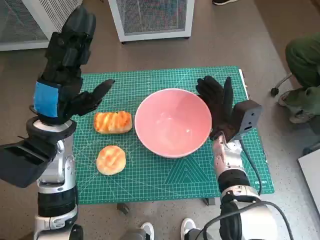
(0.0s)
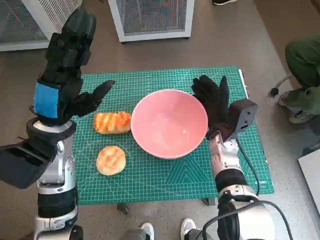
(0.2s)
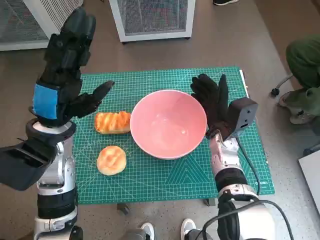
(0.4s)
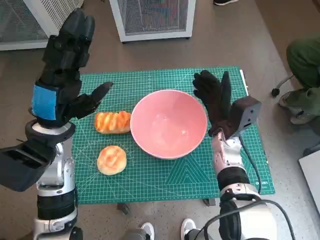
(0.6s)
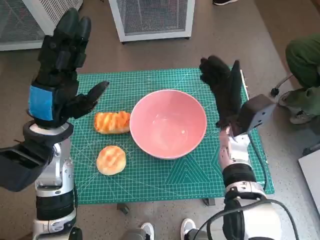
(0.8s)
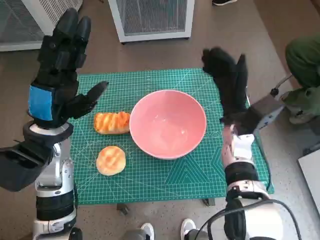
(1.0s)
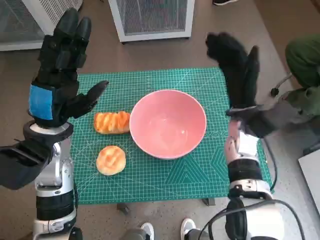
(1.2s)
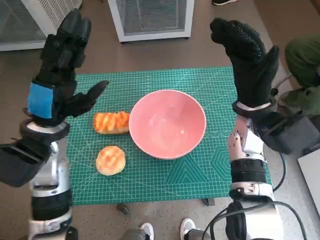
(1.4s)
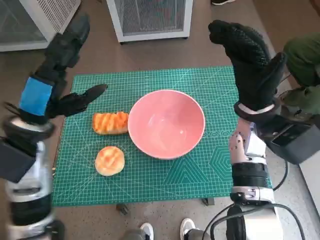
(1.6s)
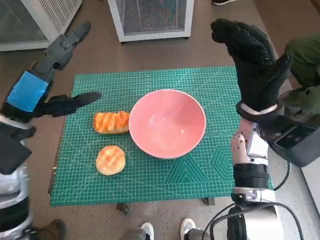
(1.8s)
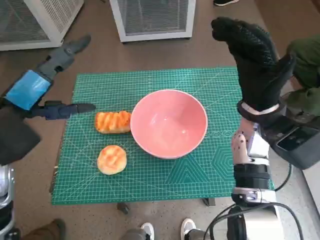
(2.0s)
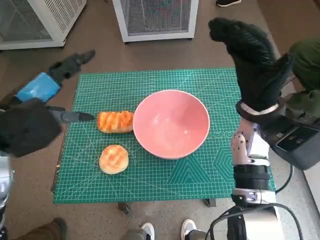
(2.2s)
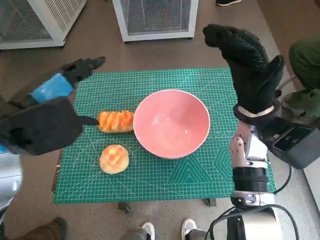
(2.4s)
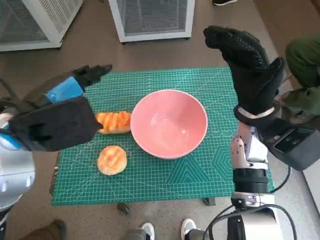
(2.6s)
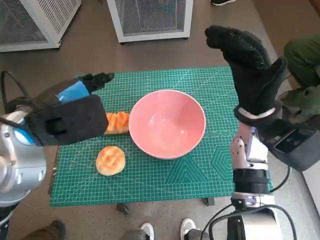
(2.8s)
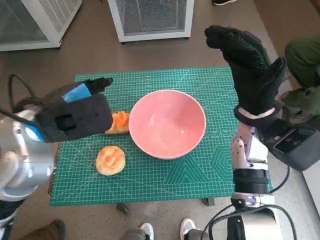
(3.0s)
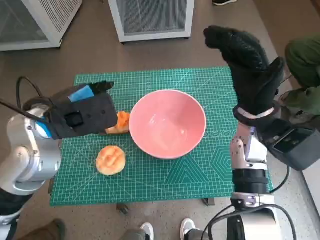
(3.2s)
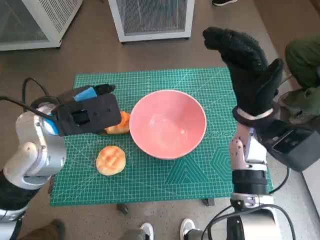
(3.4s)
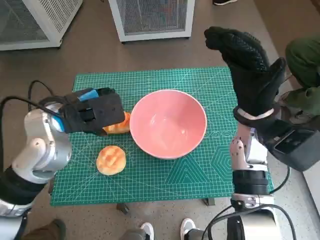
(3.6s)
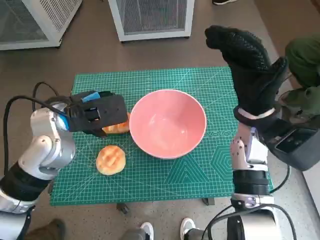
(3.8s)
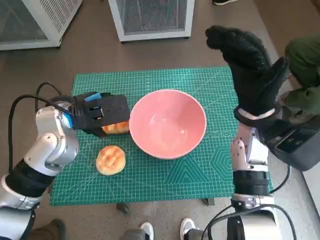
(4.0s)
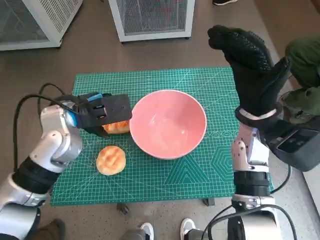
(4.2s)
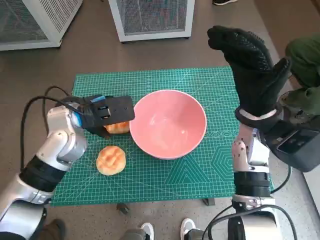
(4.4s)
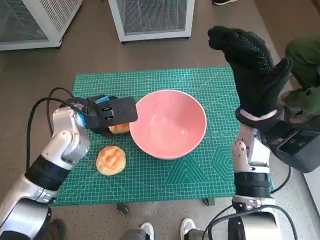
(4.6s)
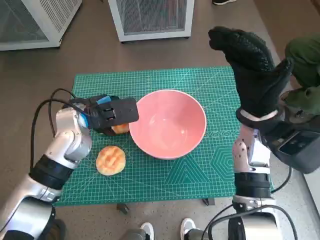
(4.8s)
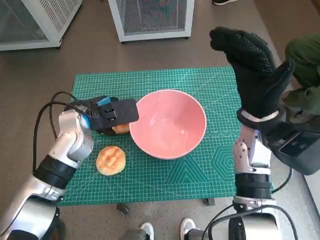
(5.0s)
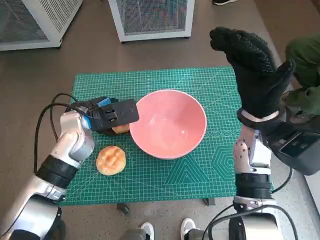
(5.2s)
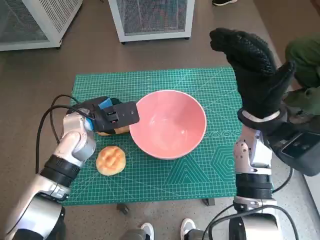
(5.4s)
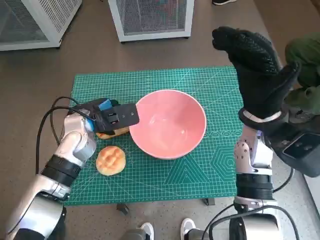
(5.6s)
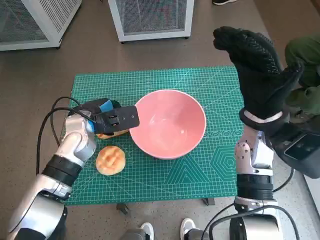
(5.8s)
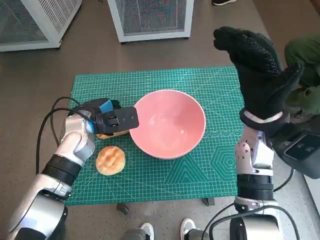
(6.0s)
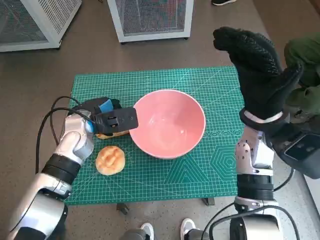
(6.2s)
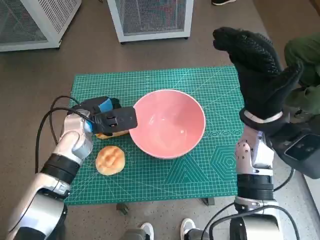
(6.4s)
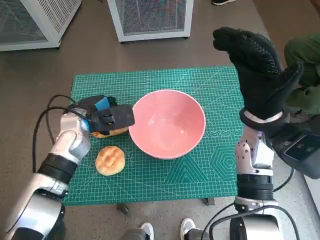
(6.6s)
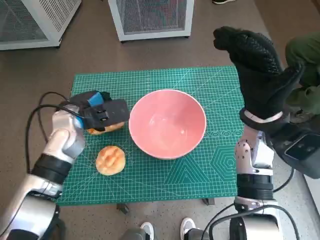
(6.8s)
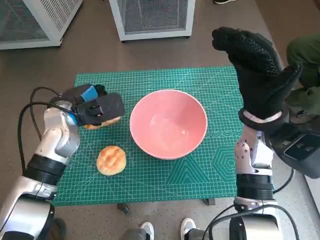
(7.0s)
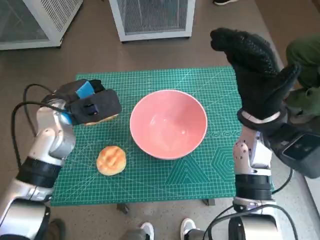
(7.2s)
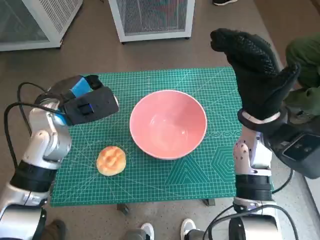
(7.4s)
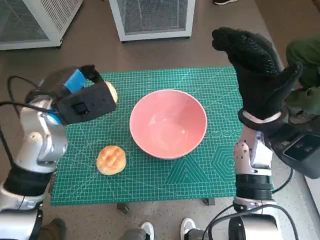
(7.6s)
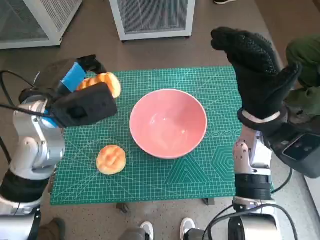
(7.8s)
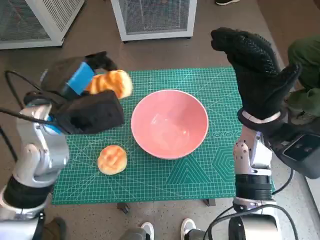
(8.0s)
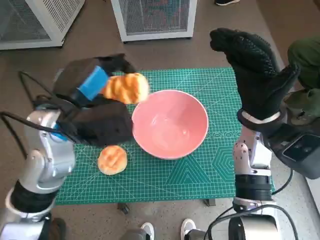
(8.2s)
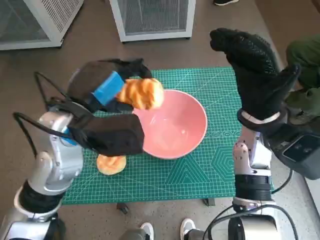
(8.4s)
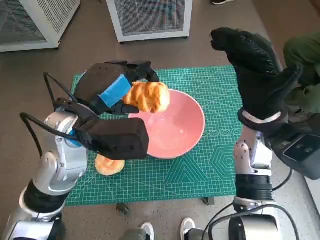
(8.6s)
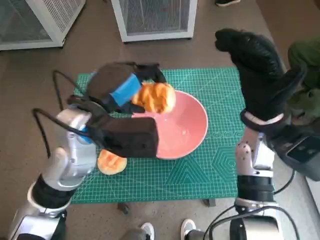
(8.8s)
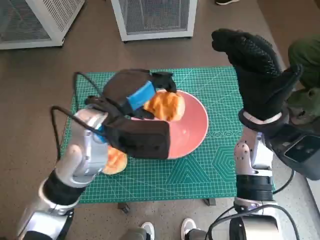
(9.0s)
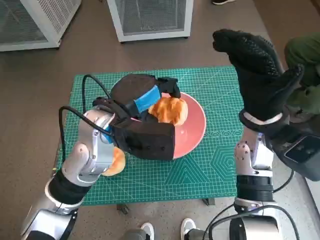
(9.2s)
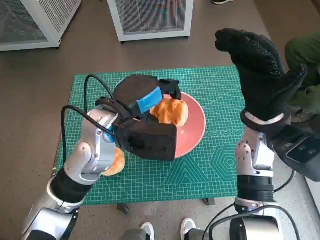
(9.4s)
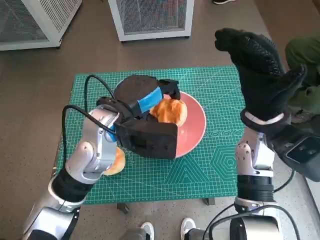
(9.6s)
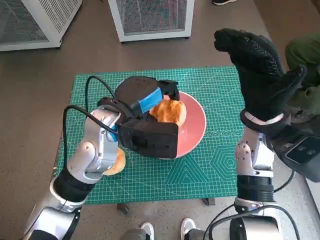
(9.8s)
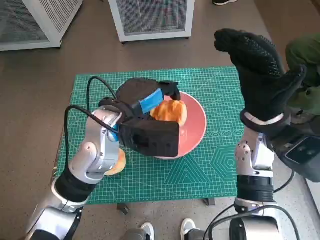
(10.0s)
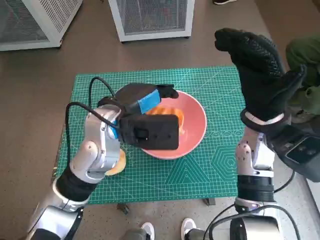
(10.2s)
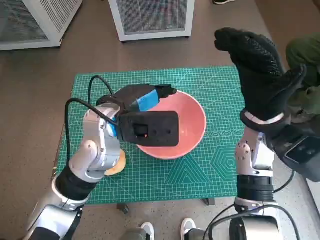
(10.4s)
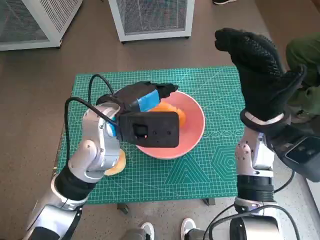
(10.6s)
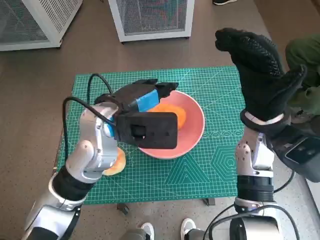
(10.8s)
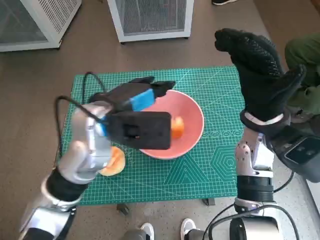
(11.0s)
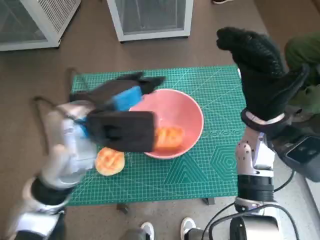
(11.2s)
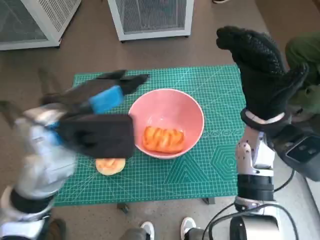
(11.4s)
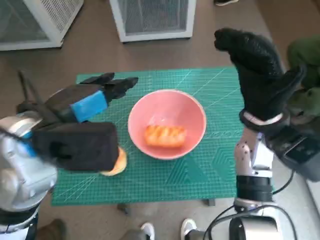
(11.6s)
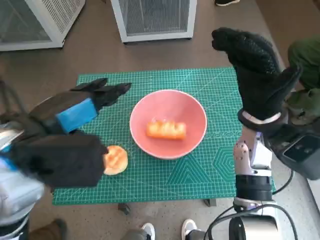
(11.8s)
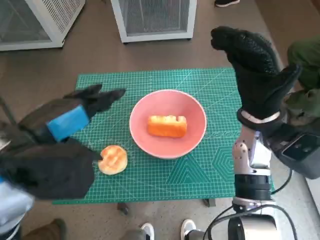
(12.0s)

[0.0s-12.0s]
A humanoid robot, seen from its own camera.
Task of the whole recording: Push the bowl into the center of the table and put the bread into the bowl.
Step, 0.8s to 5.6s: Grasp the long bread with left hand.
Step, 5.8s to 10.4s: Place the long bread in pink bowl with left hand.
0.0s to 1.6s: The right hand is displaced upward by roughly 10 cm.
1.6s to 3.0s: The left hand travels upward by about 5 cm.
3.0s to 4.4s: The left hand shifts some 10 cm downward and forward.
4.4s to 6.0s: The left hand moves downward, about 5 cm.
6.0s to 7.6s: The left hand travels upward by some 10 cm.
7.6s to 9.0s: The left hand goes roughly 10 cm to the right.
10.4s to 12.0s: The left hand heads backward, to the left and upward, covering about 15 cm.

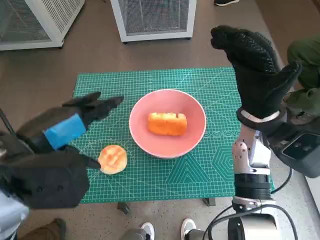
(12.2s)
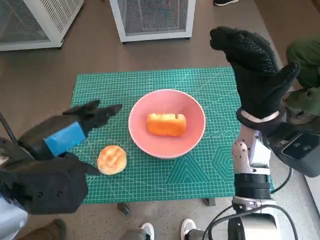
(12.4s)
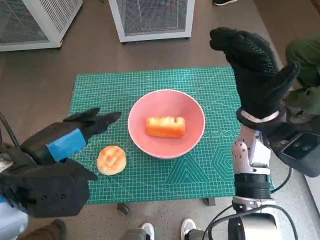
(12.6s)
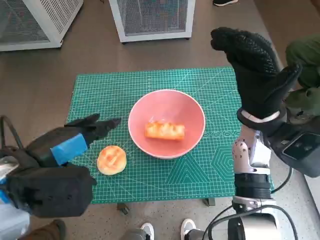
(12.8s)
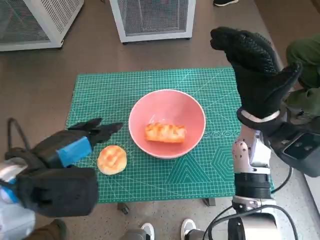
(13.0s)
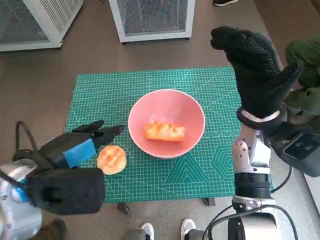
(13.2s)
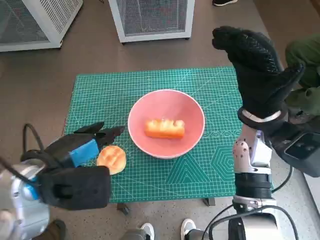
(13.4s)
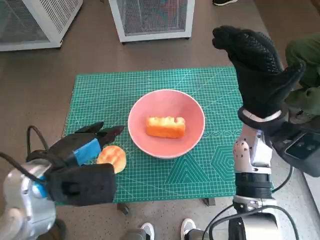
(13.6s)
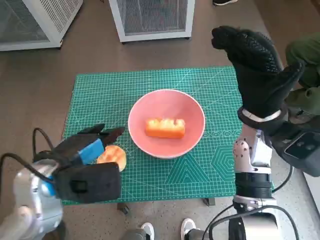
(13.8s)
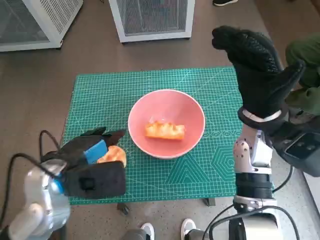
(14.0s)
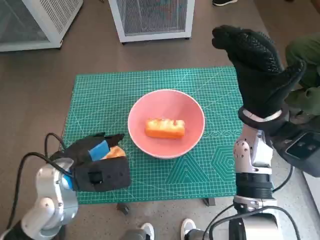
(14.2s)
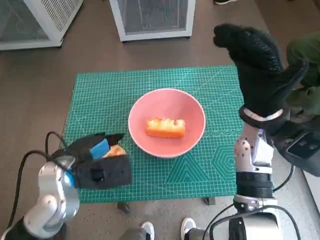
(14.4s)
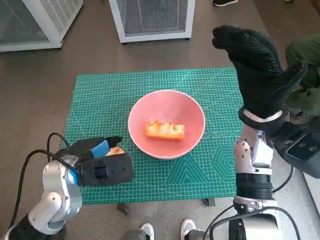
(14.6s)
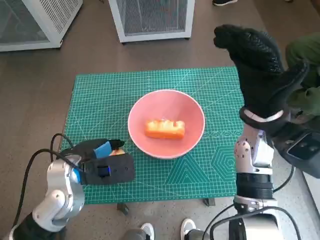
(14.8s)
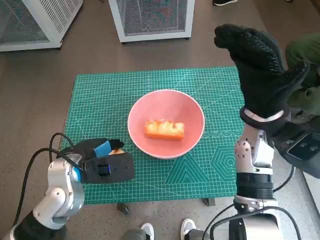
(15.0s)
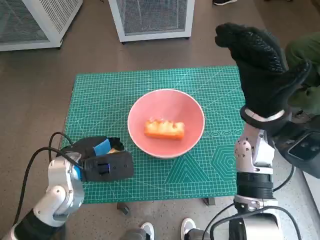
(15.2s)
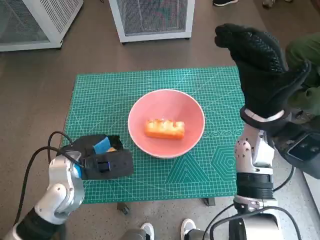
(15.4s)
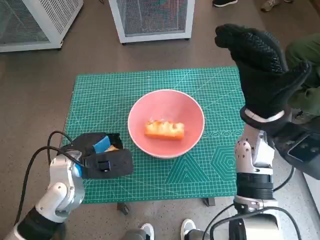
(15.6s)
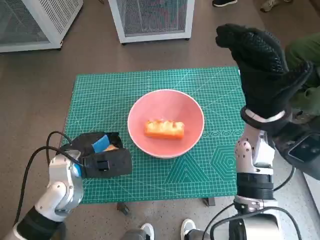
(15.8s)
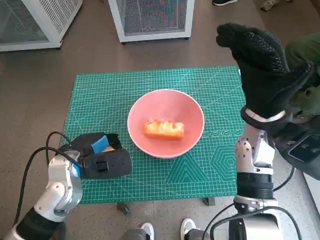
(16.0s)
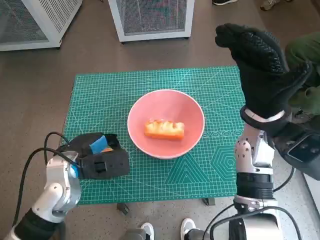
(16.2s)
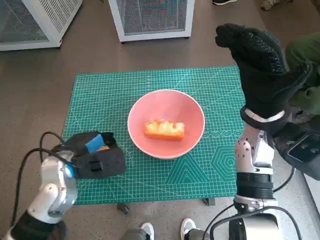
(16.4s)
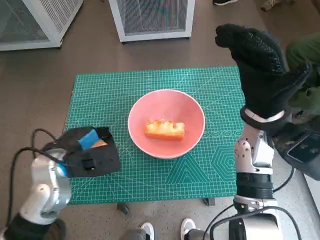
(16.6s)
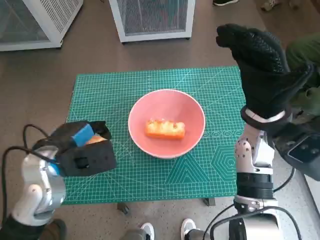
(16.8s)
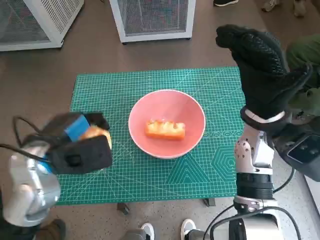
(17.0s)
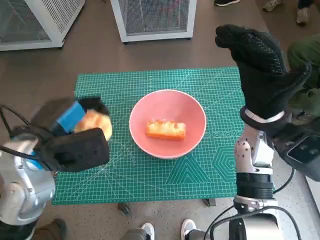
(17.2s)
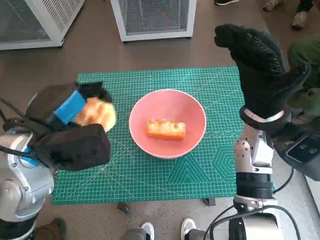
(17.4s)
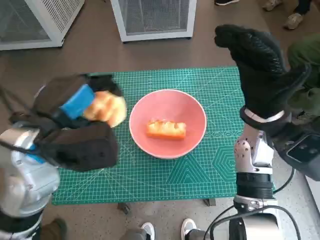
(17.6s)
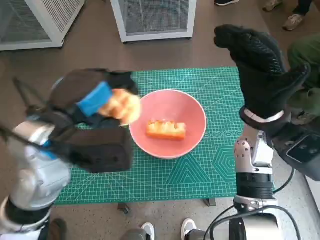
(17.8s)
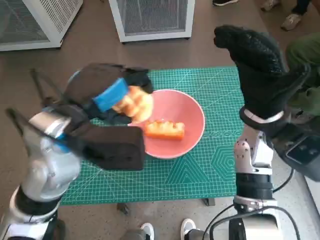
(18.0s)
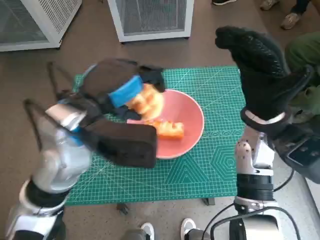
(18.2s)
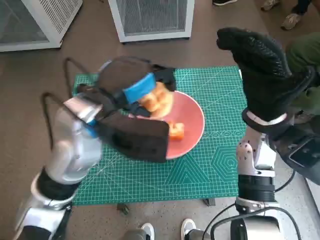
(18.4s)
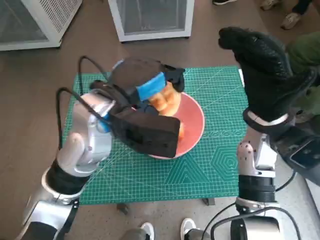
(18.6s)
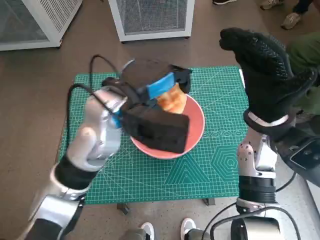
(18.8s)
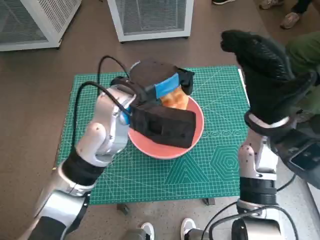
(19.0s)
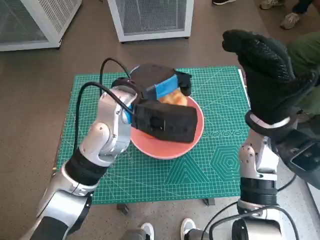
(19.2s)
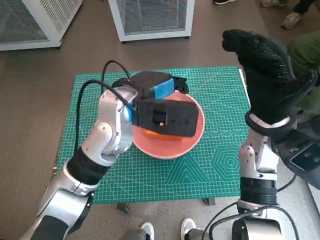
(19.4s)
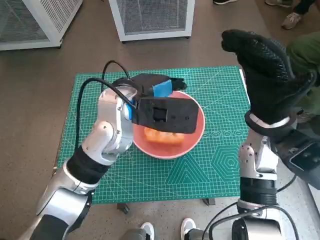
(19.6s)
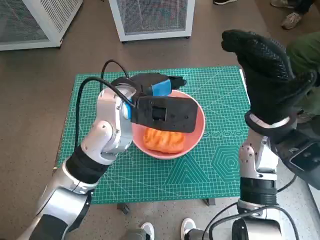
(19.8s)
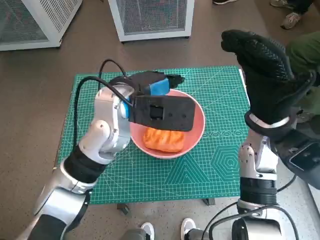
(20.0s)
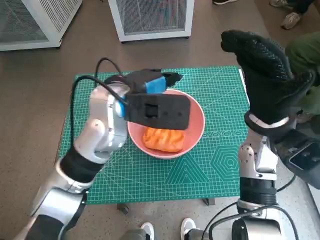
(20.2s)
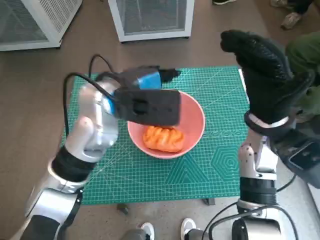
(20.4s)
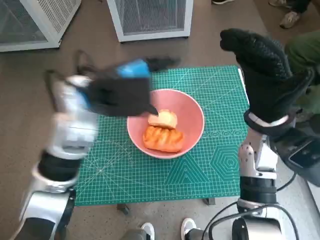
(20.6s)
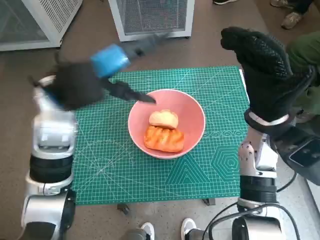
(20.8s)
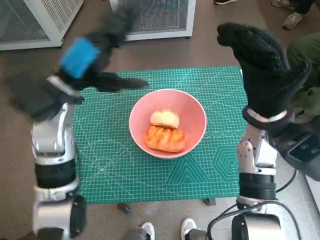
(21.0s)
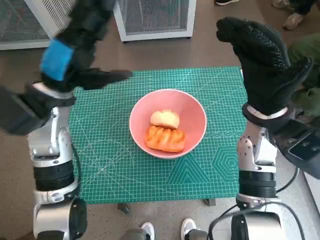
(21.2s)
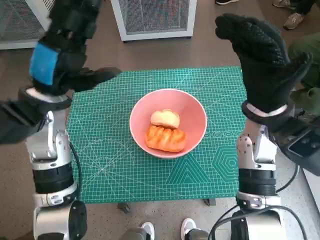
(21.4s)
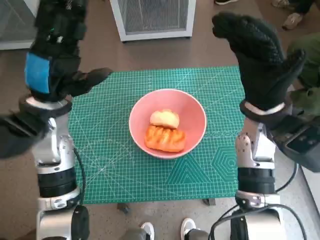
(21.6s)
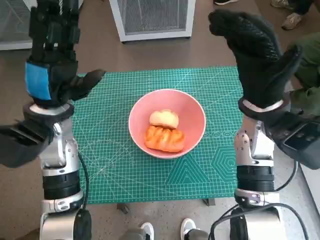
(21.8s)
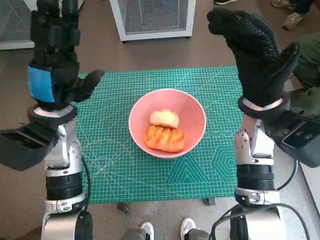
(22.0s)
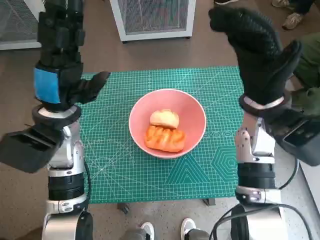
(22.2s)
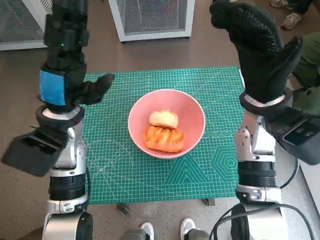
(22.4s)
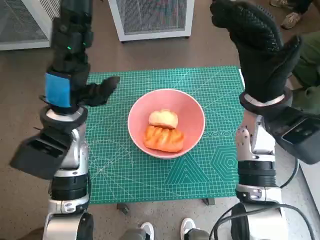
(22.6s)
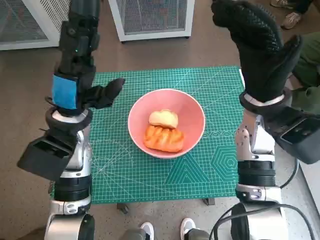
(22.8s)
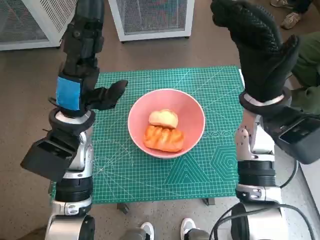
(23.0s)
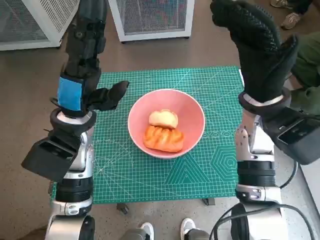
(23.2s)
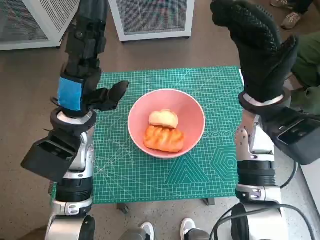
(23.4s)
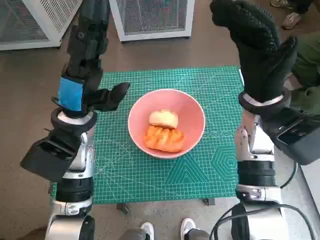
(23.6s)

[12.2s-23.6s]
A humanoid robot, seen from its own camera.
Task of the whole recording: Push the bowl into the center of the table and put the bread into the bowl.
Step, 12.2s to 15.2s: Grasp the round bread with left hand.
Step, 15.4s to 19.6s: Place the round bread in pink bowl with left hand.
12.2s to 13.6s: The left hand heads downward, covering some 5 cm.
13.6s to 15.0s: The left hand goes roughly 5 cm downward.
15.0s to 16.4s: There are only small adjustments of the hands.
16.4s to 17.8s: The left hand travels upward by some 15 cm.
17.8s to 19.4s: The left hand moves to the right and forward, approximately 10 cm.
19.4s to 20.8s: The left hand heads to the left, covering approximately 10 cm.
20.8s to 22.2s: The left hand travels downward by approximately 5 cm.
